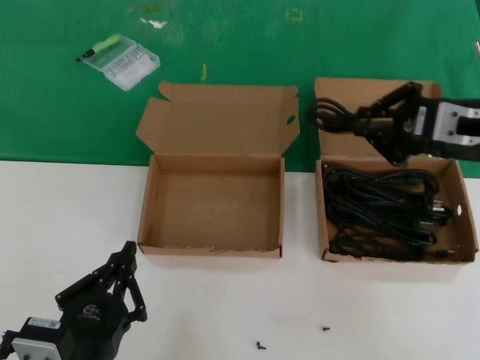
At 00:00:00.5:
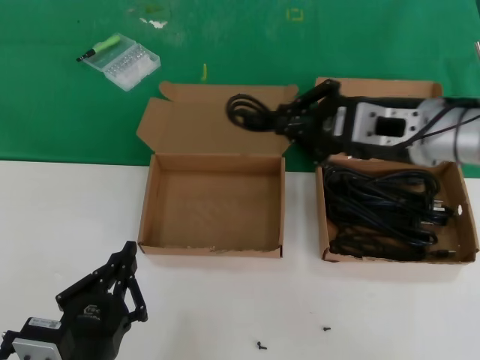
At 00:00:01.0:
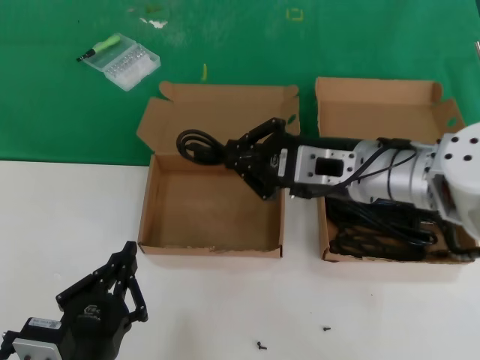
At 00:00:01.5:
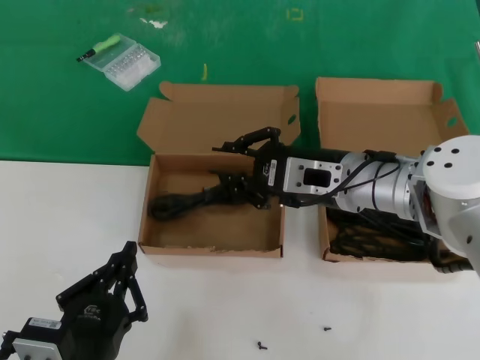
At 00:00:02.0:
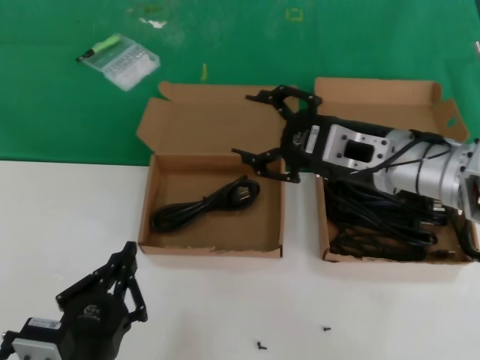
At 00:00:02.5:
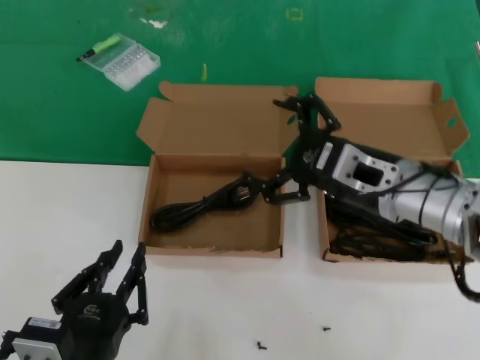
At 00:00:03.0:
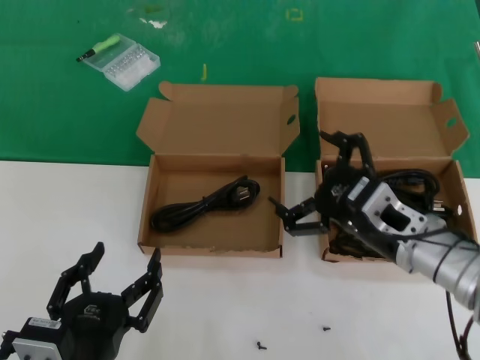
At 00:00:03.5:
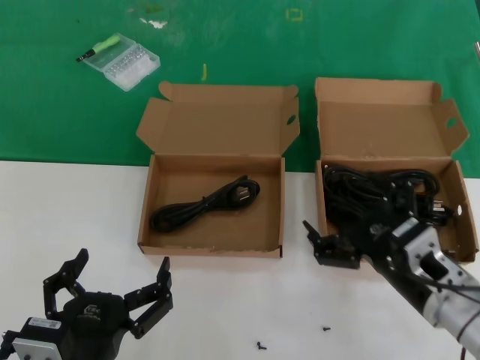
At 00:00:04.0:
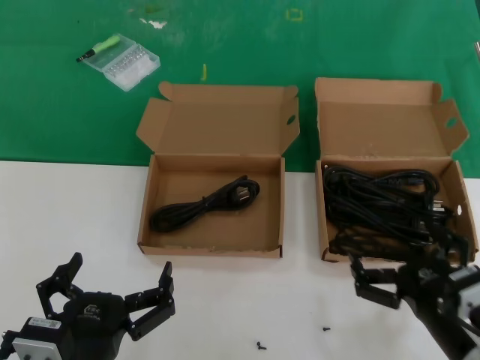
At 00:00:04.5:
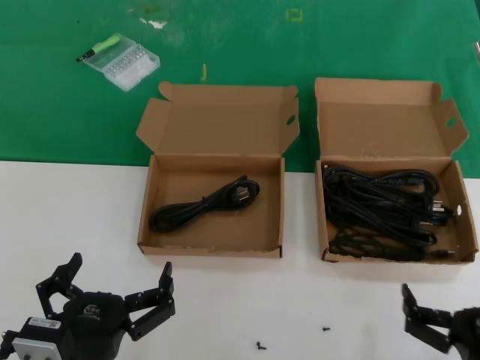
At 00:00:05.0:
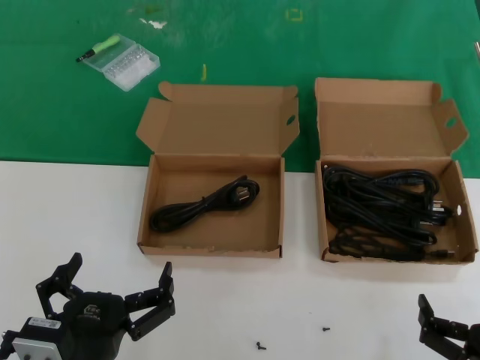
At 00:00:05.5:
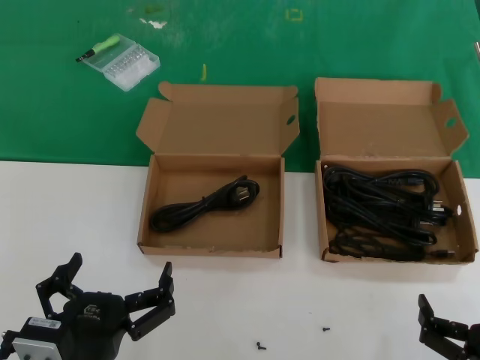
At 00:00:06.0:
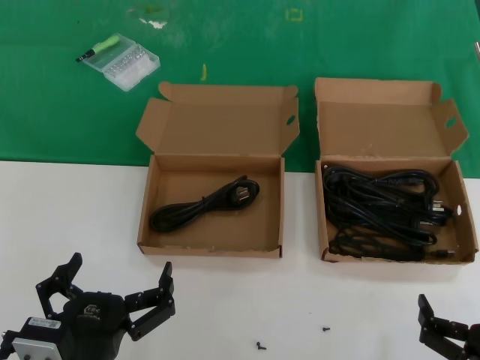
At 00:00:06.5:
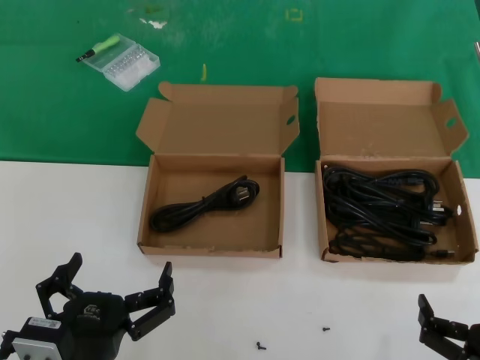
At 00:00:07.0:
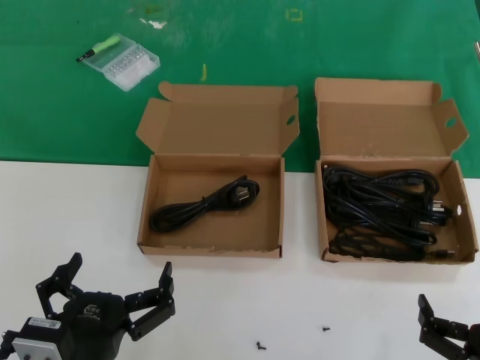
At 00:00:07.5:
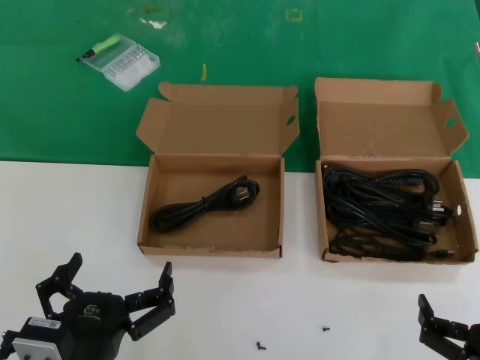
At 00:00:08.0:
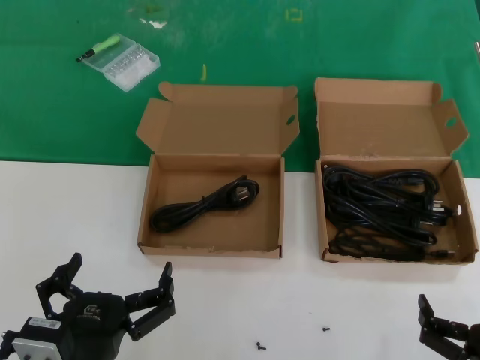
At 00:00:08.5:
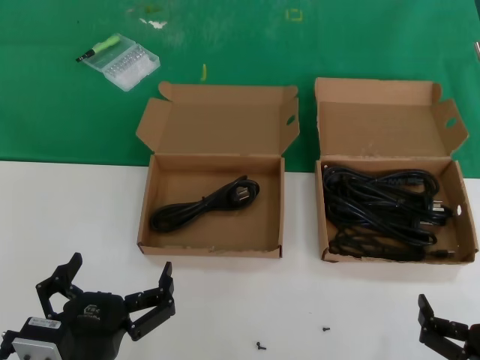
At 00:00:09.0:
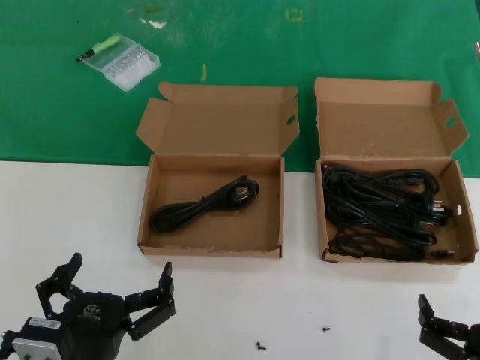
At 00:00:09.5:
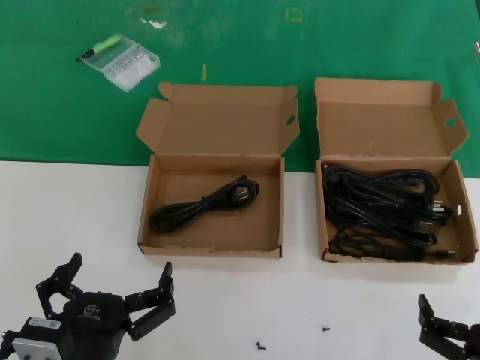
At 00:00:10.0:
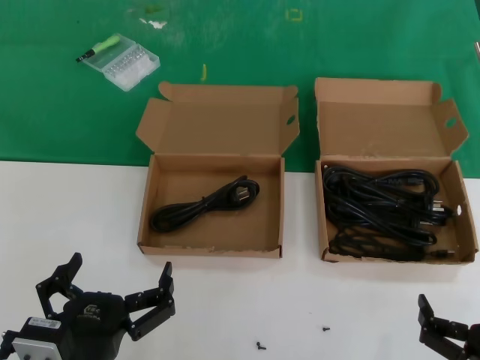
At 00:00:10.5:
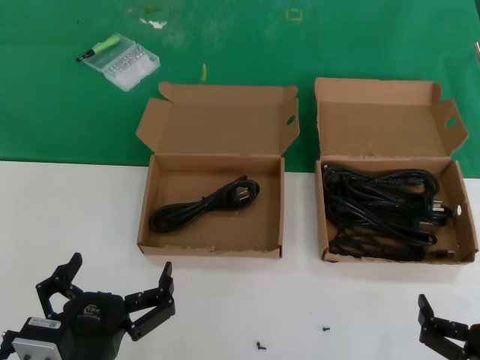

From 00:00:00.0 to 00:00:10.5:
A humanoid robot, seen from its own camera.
Task of the whole recording: take the parts from the box containing them and put them into an empty box.
From 00:00:00.0 to 00:00:02.0: The right hand travels to the left by approximately 10 cm.
From 00:00:02.0 to 00:00:04.0: The right hand heads downward and backward, covering about 25 cm.
From 00:00:04.0 to 00:00:06.5: The right hand heads backward, covering about 10 cm.
From 00:00:06.5 to 00:00:10.5: Both hands stay about where they are.

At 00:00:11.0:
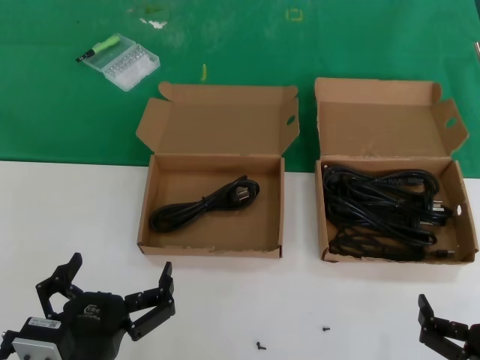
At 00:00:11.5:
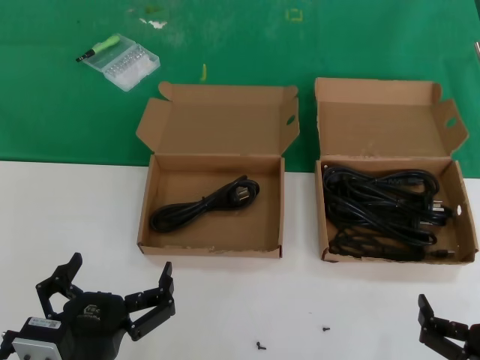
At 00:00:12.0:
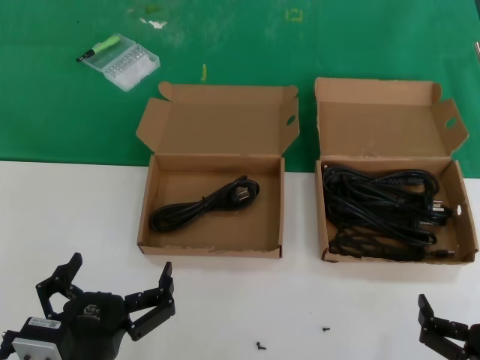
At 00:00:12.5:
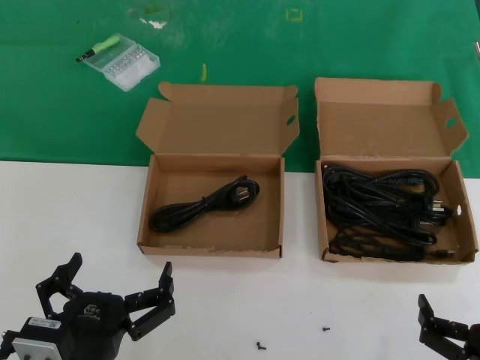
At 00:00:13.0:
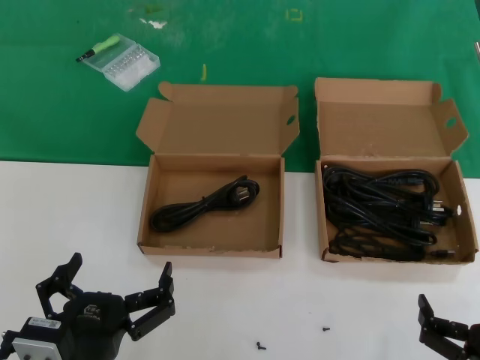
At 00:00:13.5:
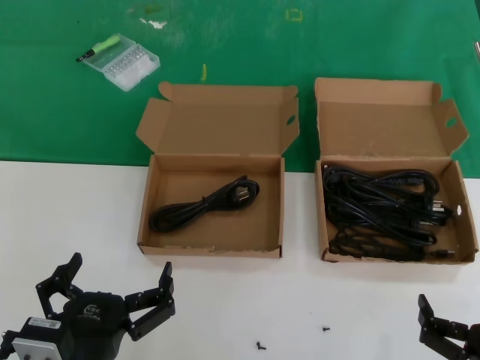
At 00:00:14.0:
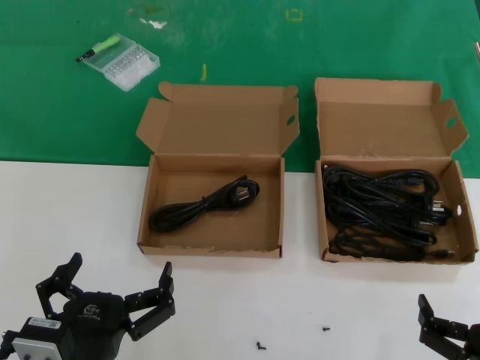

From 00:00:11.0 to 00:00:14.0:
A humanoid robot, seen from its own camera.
Task of the whole recording: take the parts from the box containing them and put them into an empty box.
From 00:00:11.0 to 00:00:14.0: Both hands stay about where they are.

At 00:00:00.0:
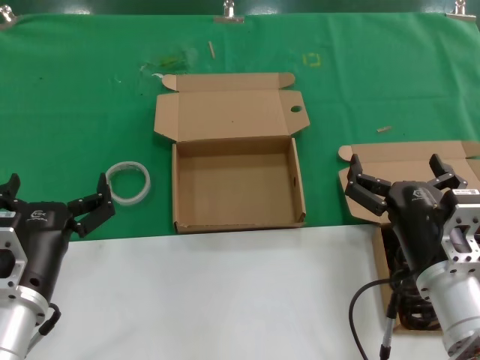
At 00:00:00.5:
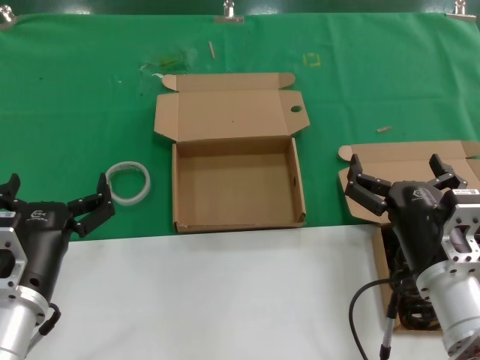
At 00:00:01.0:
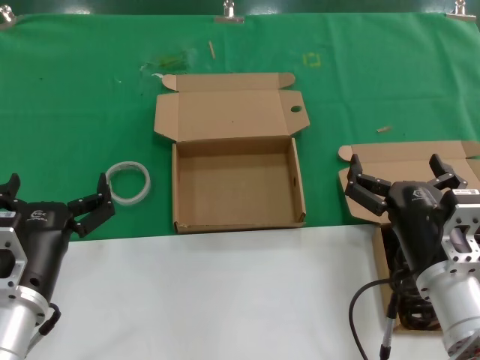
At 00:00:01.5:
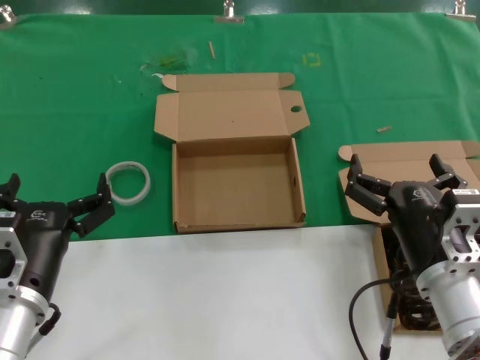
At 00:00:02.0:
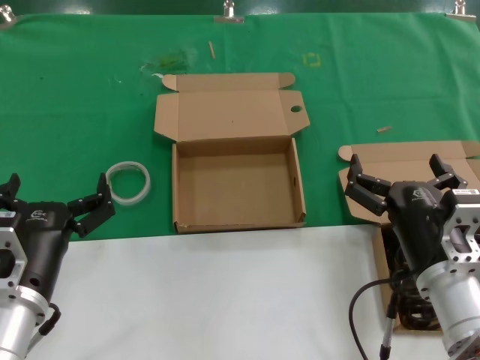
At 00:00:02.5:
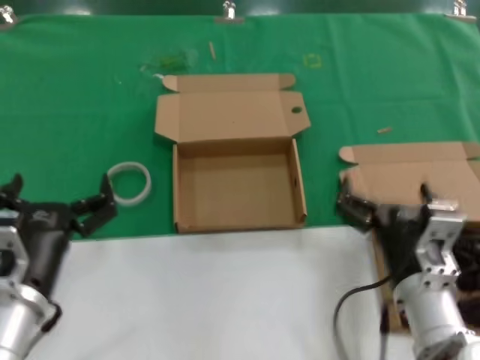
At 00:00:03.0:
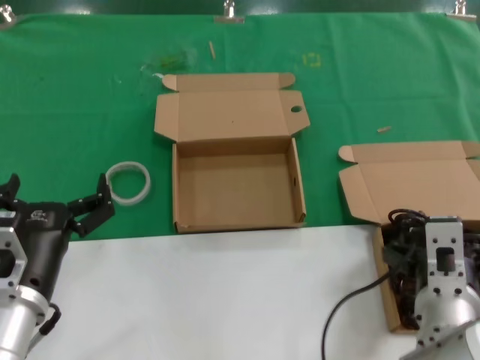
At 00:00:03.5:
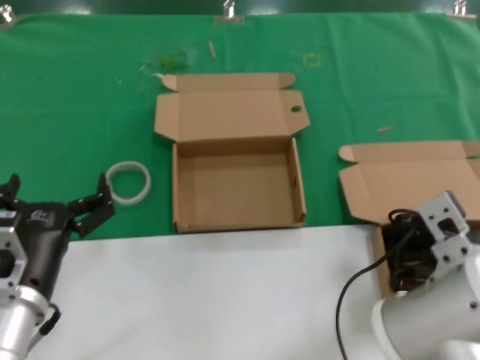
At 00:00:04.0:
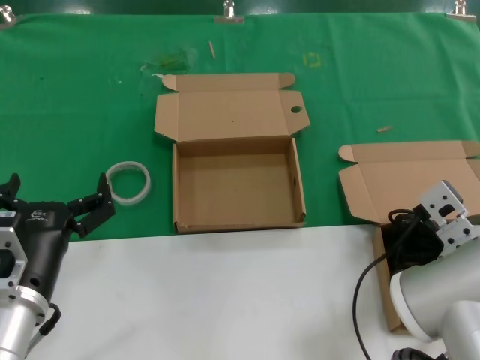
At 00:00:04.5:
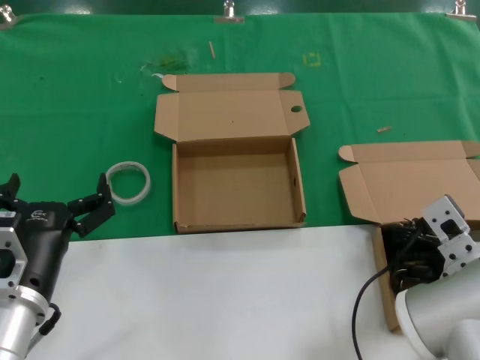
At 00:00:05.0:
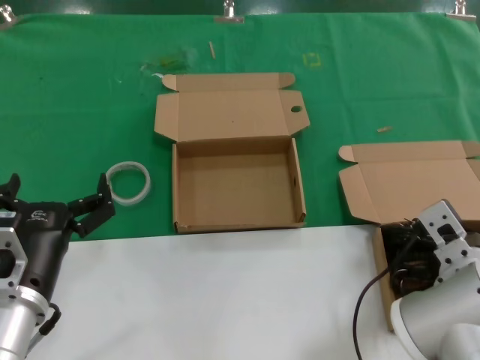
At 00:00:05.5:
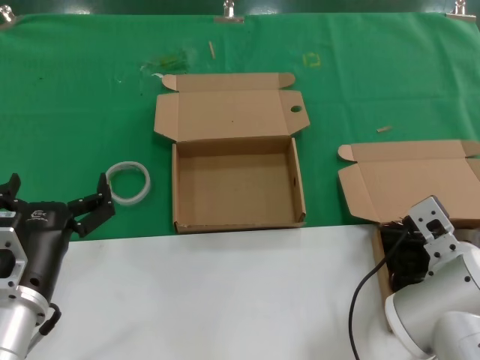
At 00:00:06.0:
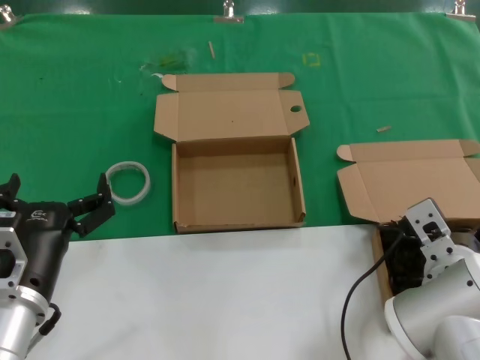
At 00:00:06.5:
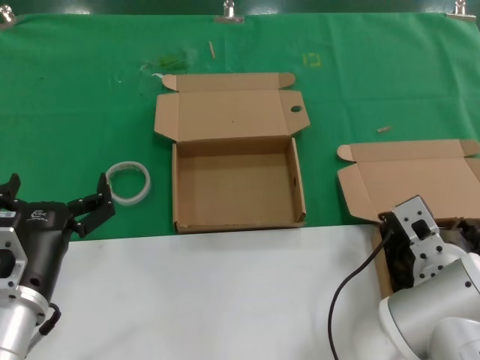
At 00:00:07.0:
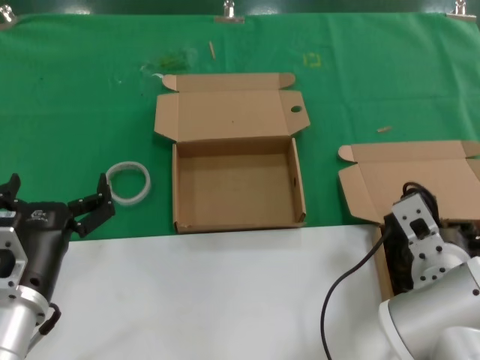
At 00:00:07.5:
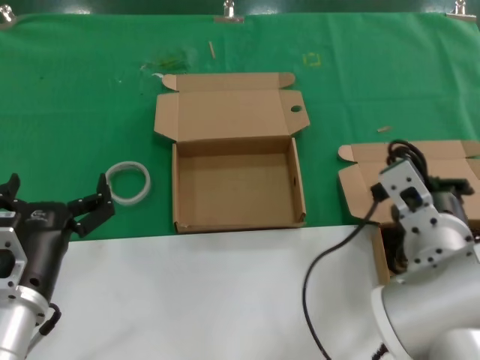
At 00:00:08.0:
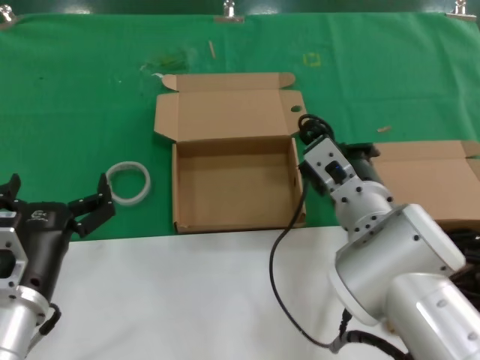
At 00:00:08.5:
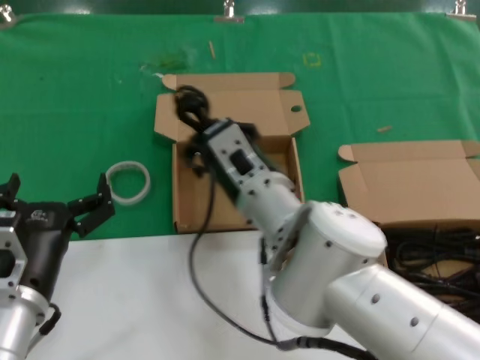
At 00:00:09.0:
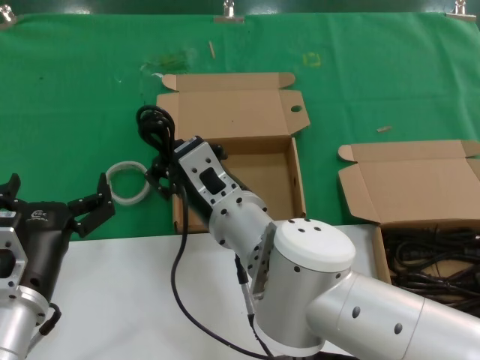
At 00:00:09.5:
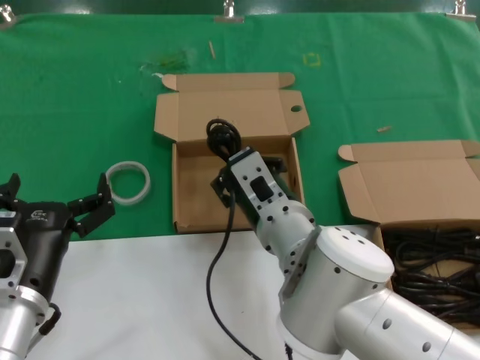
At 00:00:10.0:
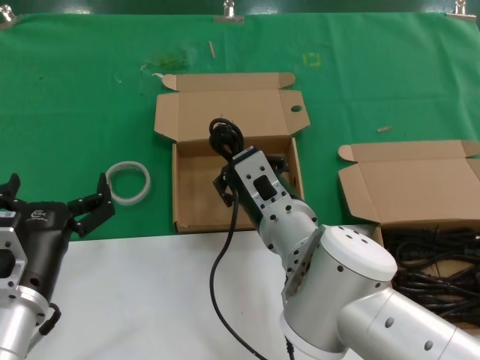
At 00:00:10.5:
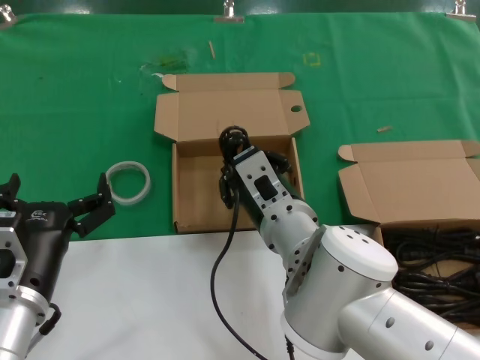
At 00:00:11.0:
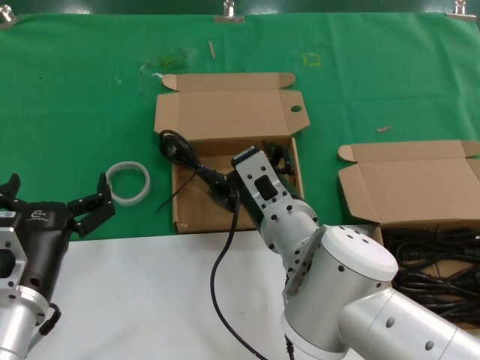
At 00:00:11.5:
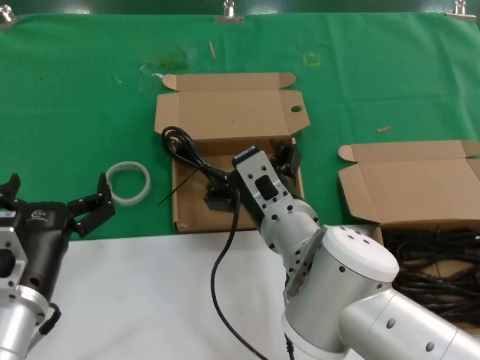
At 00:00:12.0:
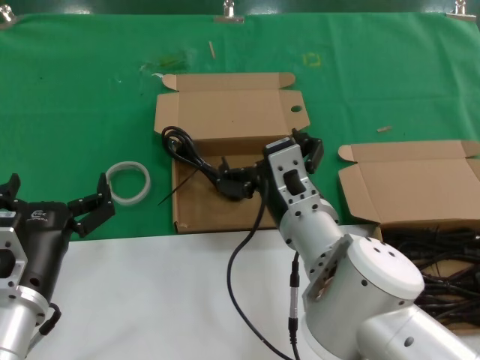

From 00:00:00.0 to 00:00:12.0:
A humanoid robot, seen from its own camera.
Task of the whole recording: take the parts from the box containing them and put them into an empty box.
Step, from 00:00:00.0 to 00:00:06.0: Grasp the data cable.
Step, from 00:00:06.5 to 00:00:11.0: Place the data cable in the another box.
From 00:00:00.0 to 00:00:02.0: Neither hand changes place.
From 00:00:02.0 to 00:00:04.0: The right hand shifts approximately 5 cm forward.
From 00:00:04.0 to 00:00:06.0: The hands make only small movements.
From 00:00:06.0 to 00:00:08.0: The right hand shifts roughly 10 cm to the left and upward.
From 00:00:08.0 to 00:00:10.0: The right hand travels to the left by approximately 10 cm.
From 00:00:10.0 to 00:00:12.0: The hands stay close to where they were, moving slightly.
